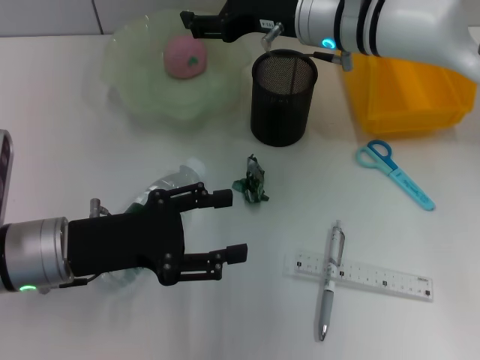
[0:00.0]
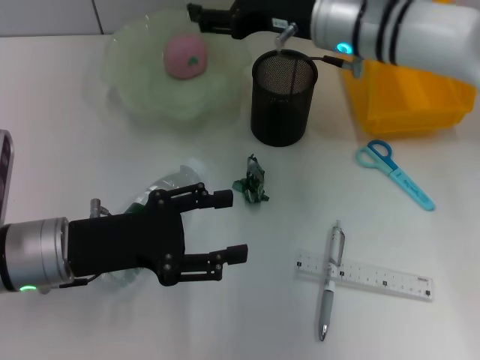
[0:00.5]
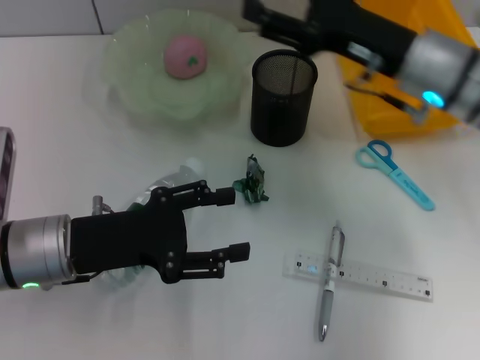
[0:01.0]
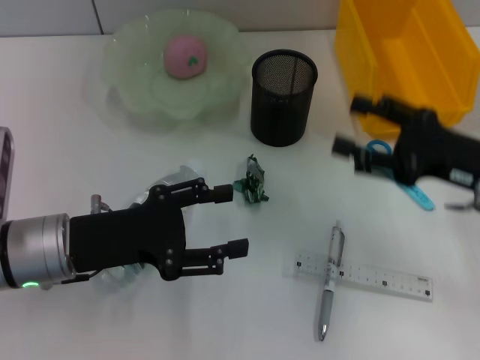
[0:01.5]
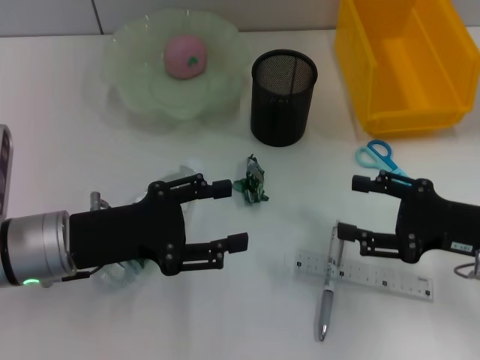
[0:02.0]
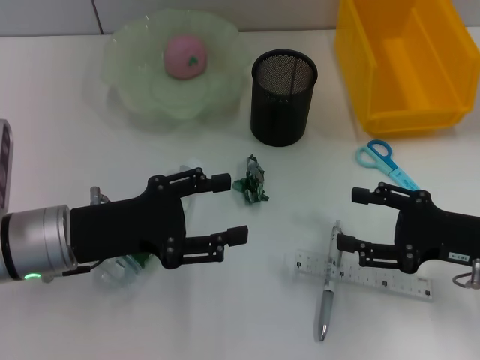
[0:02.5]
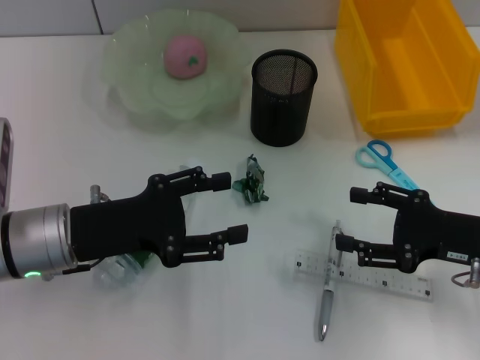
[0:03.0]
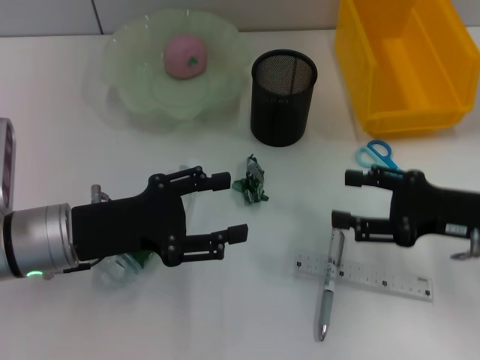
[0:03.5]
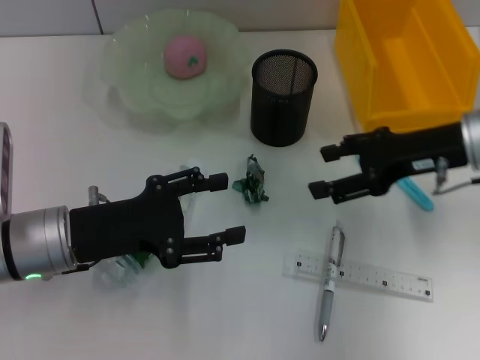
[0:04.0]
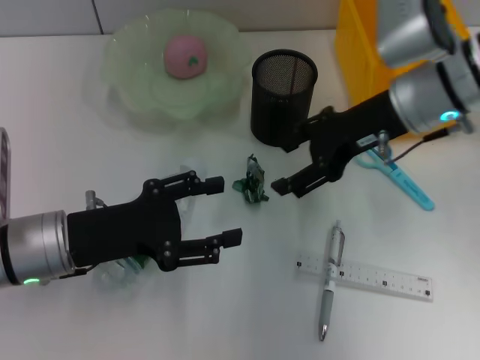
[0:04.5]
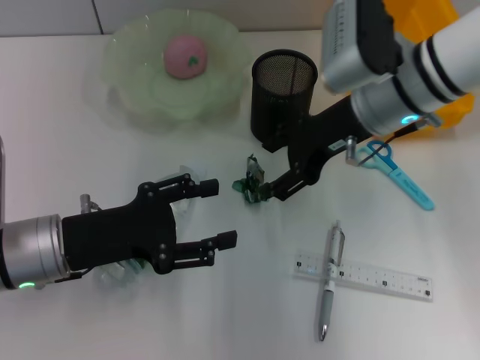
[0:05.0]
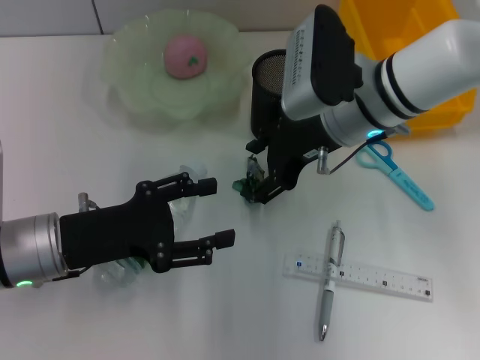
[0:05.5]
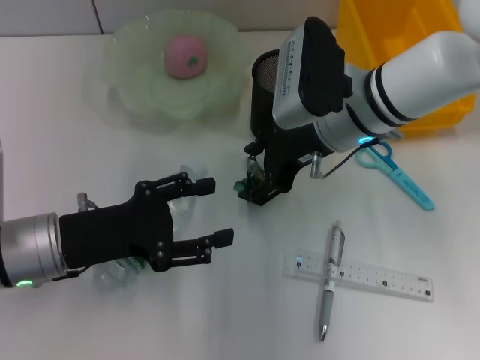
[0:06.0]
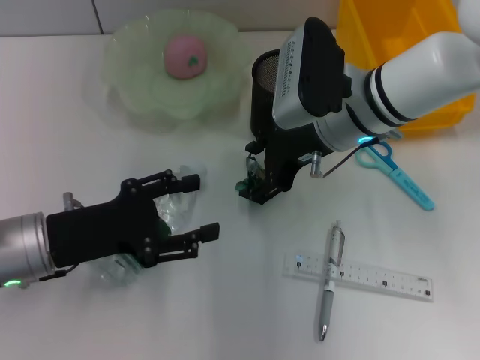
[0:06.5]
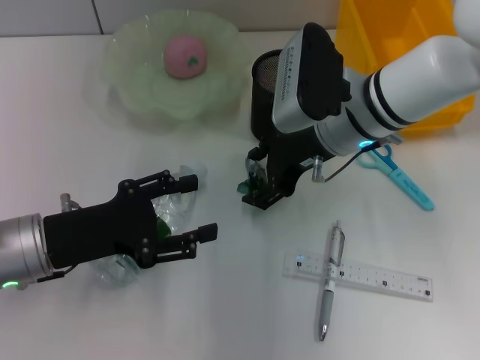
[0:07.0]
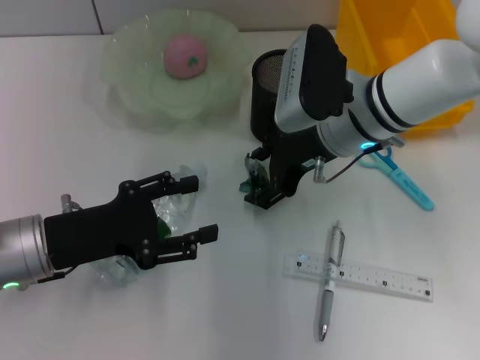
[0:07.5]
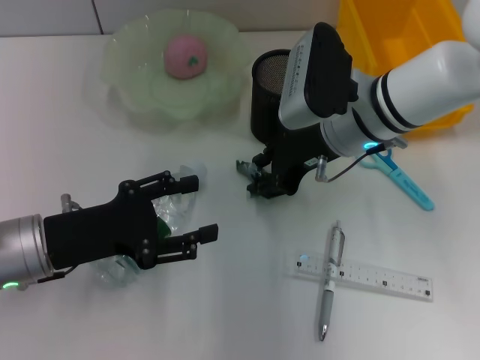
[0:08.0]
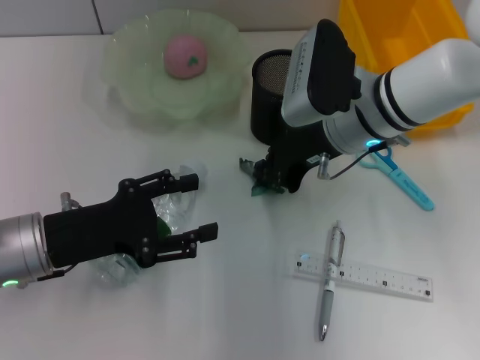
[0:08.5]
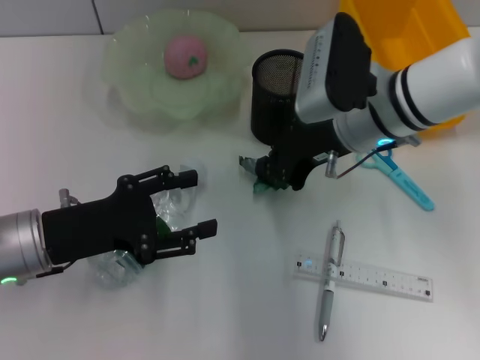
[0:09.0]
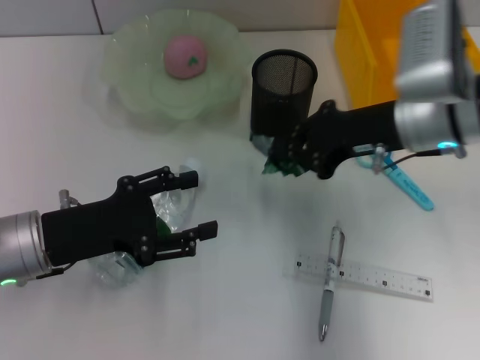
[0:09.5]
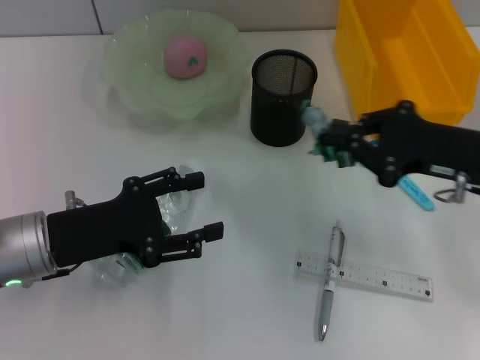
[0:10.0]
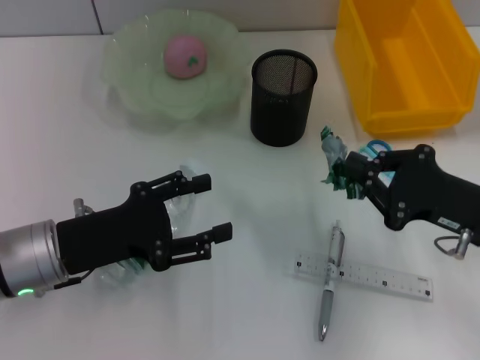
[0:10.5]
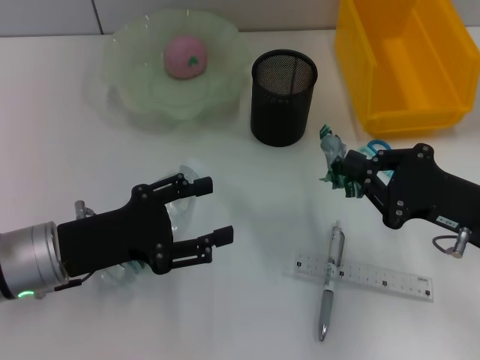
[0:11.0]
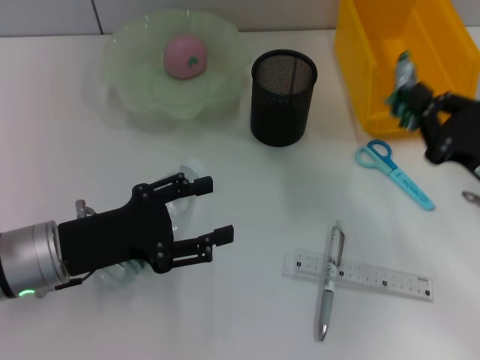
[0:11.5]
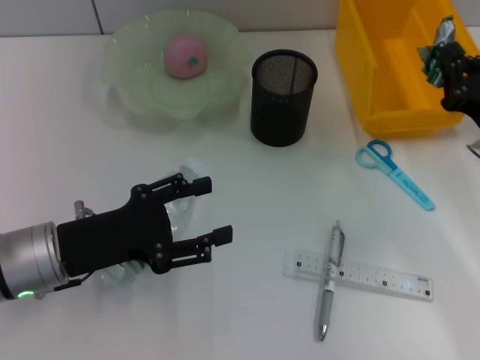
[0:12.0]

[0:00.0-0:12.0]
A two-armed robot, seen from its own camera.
Step, 0:00.0 to 0:08.0: Grab the plastic with the right hand.
0:00.0 to 0:02.0: The right gripper travels backward, to the right and downward by some 30 cm.
0:02.0 to 0:04.0: The right gripper travels forward and upward by roughly 10 cm.
0:04.0 to 0:06.0: The right gripper heads to the left, covering some 15 cm.
0:06.0 to 0:08.0: Neither gripper changes place.
0:08.0 to 0:10.0: The right gripper travels to the right and backward by some 15 cm, and closes its fingers.
0:10.0 to 0:12.0: The right gripper moves downward, some 5 cm.

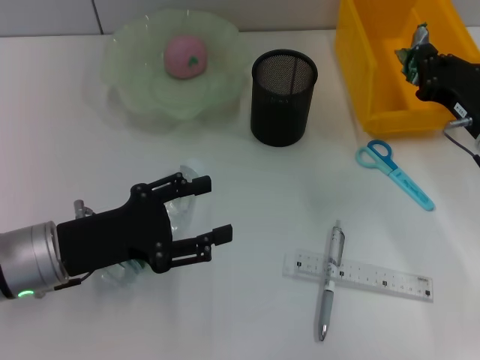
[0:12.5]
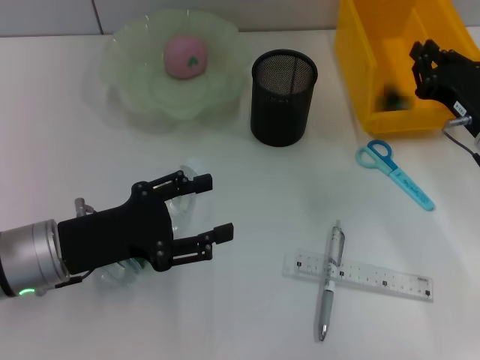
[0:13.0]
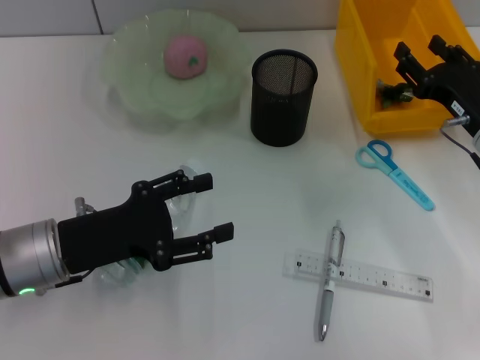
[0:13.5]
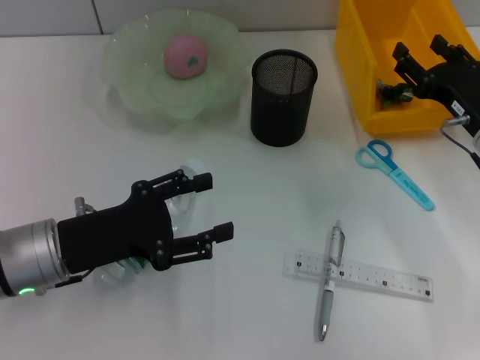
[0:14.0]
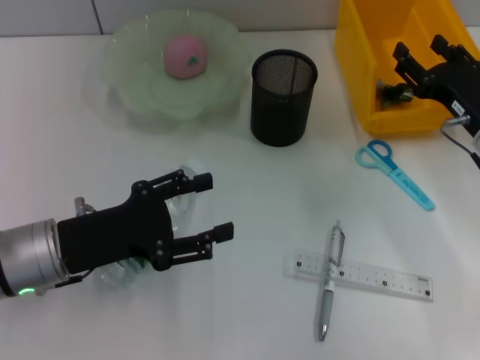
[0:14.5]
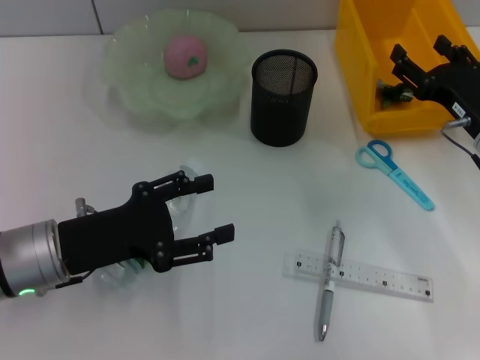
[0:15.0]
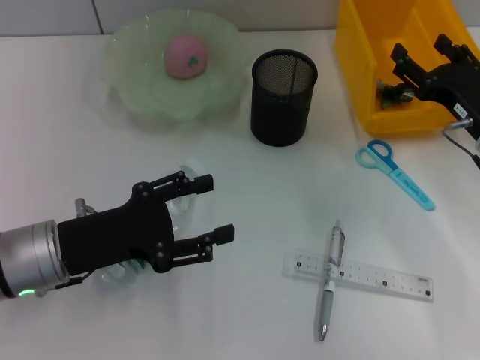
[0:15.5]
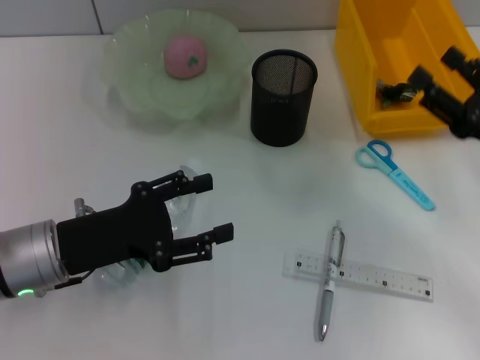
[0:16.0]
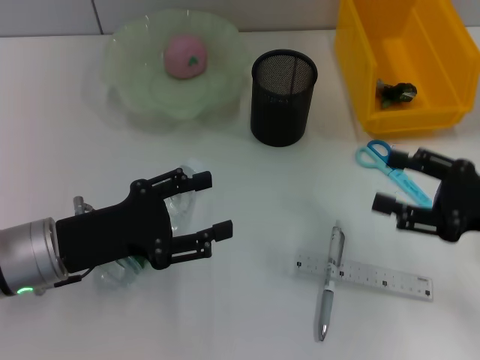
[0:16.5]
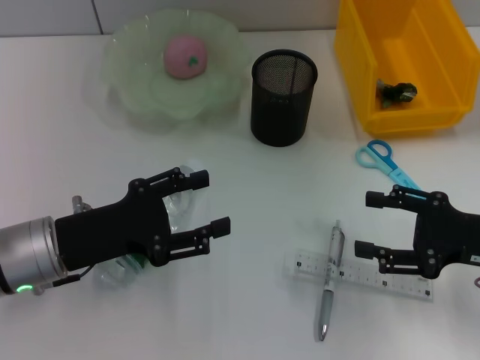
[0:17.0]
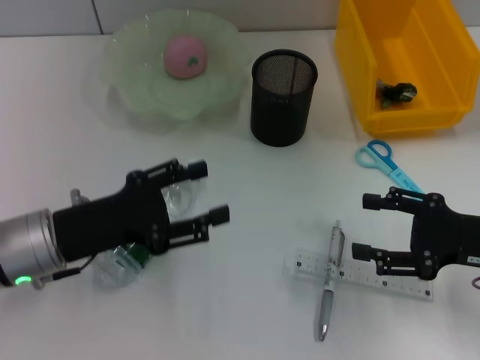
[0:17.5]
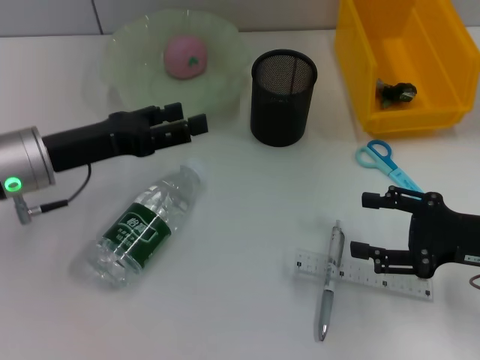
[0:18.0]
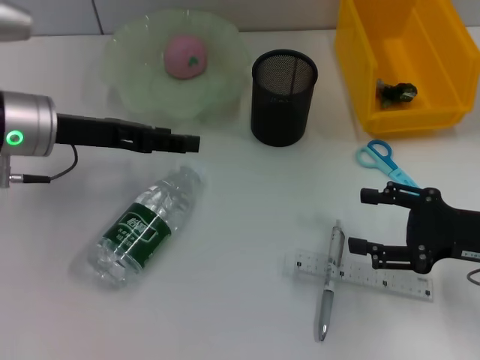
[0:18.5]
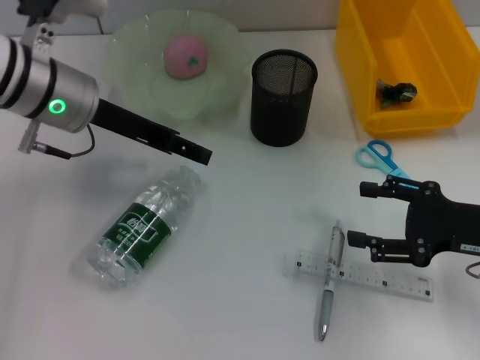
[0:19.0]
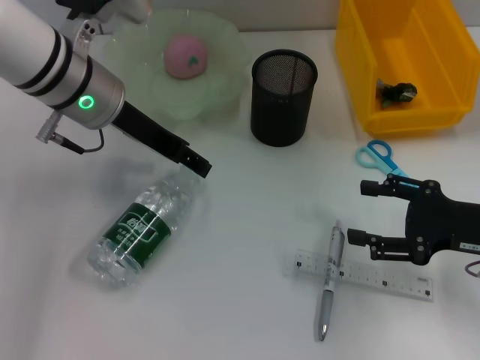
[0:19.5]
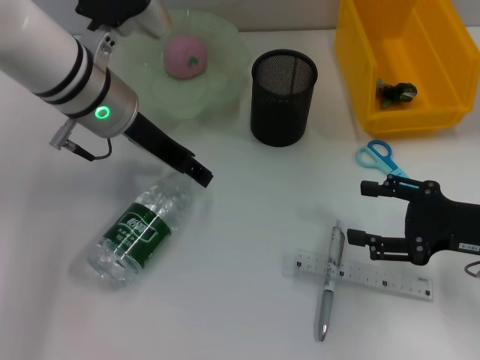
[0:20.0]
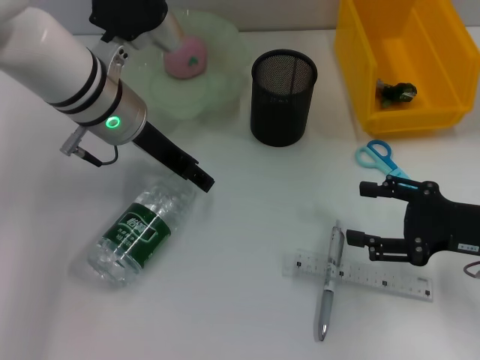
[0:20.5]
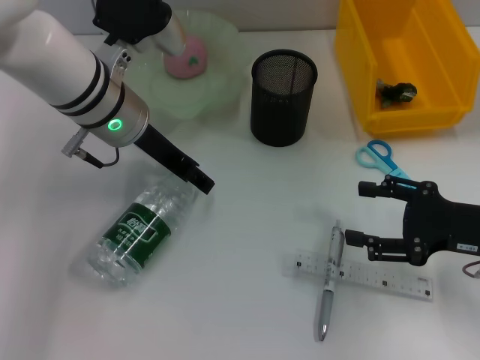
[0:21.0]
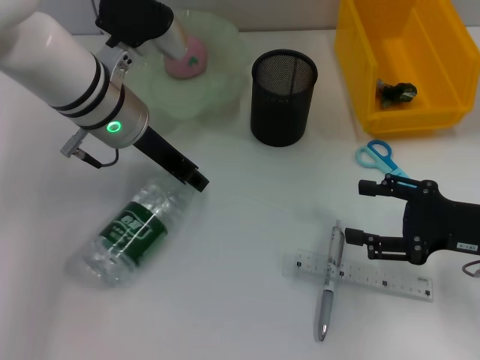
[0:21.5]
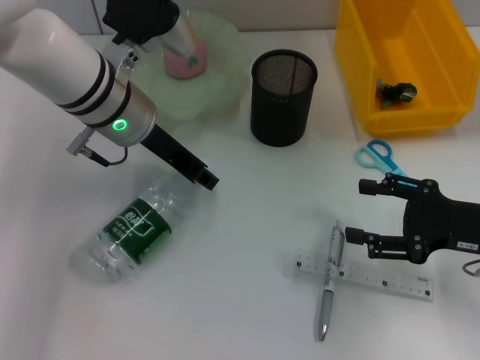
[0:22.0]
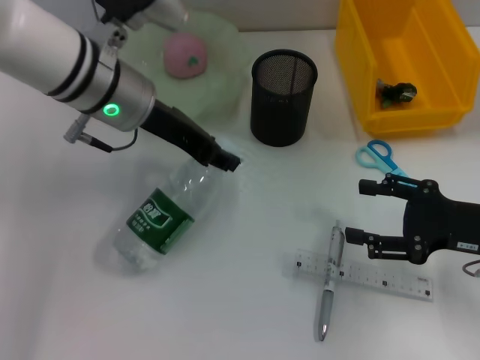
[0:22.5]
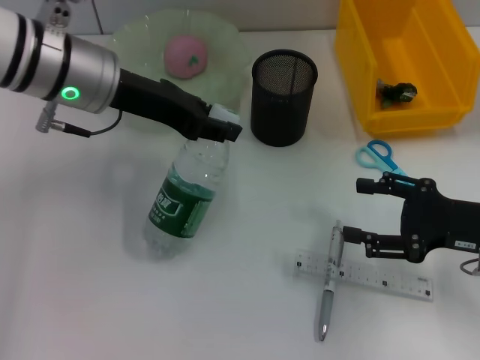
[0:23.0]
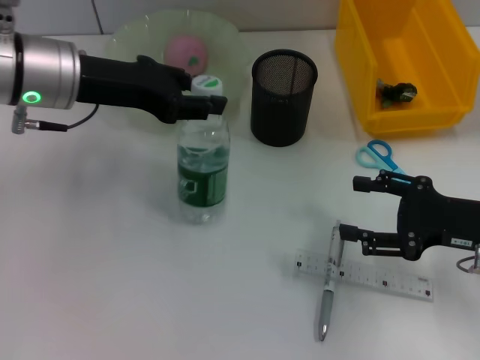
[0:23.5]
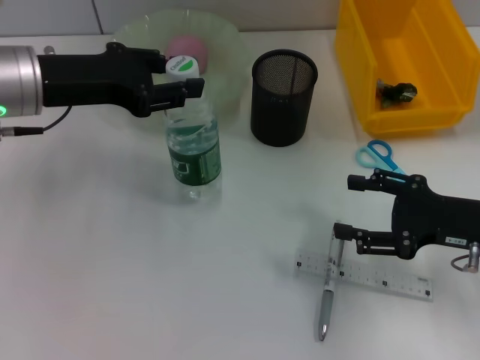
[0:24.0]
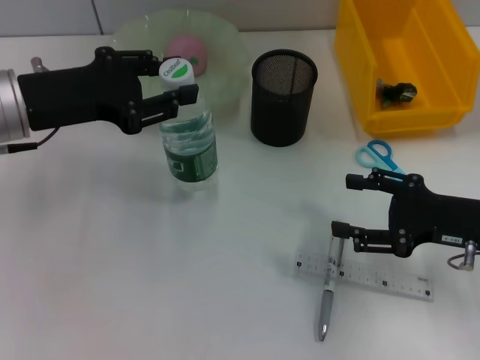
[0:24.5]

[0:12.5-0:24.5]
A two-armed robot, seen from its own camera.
Step, 0:14.0 to 0:21.5: Grab the water bottle with the left hand.
0:12.5 to 0:14.5: The right gripper opens its fingers.
0:14.5 to 0:16.5: The right gripper shifts roughly 10 cm backward.
0:16.5 to 0:18.5: The left gripper shifts approximately 15 cm forward and upward.
0:18.5 to 0:20.5: The left gripper goes some 10 cm to the right.
0:20.5 to 0:22.5: The left gripper closes its fingers.
0:22.5 to 0:24.5: The left gripper is displaced to the left and backward by roughly 10 cm.

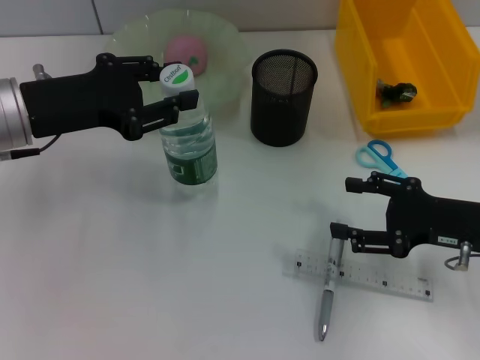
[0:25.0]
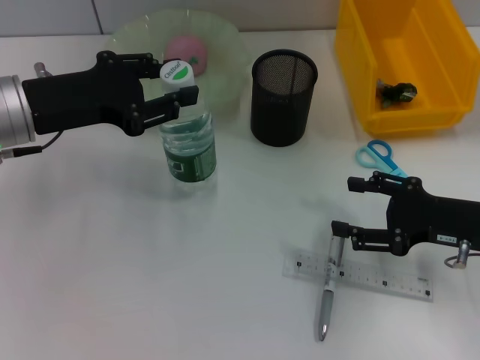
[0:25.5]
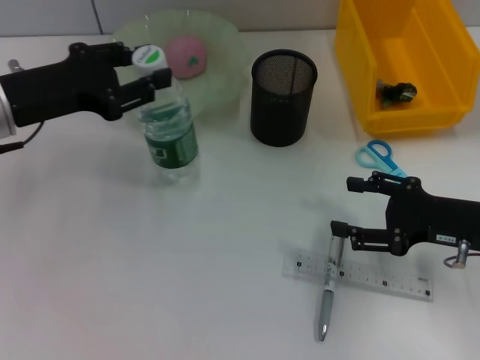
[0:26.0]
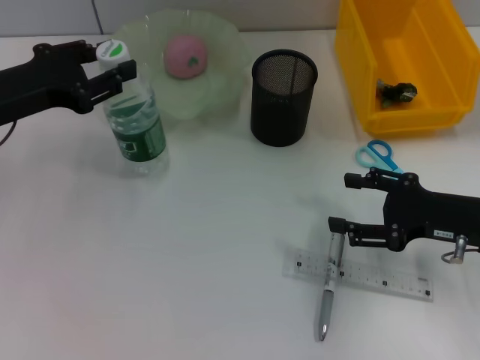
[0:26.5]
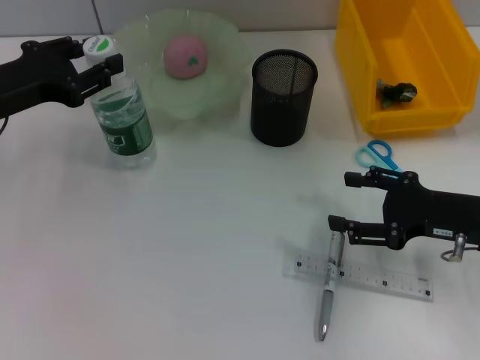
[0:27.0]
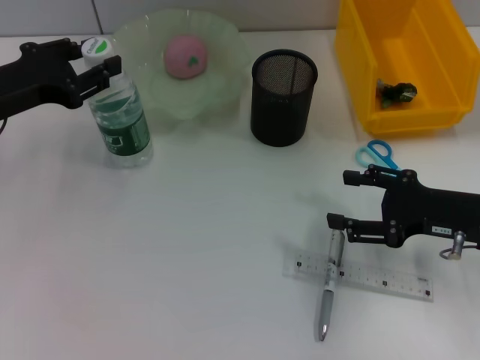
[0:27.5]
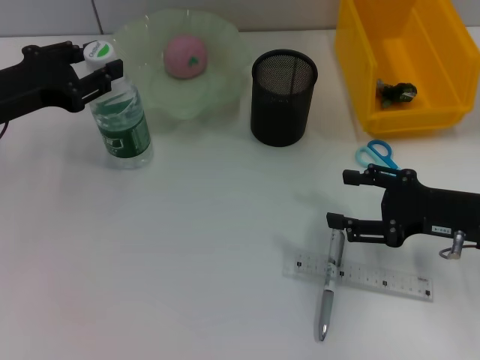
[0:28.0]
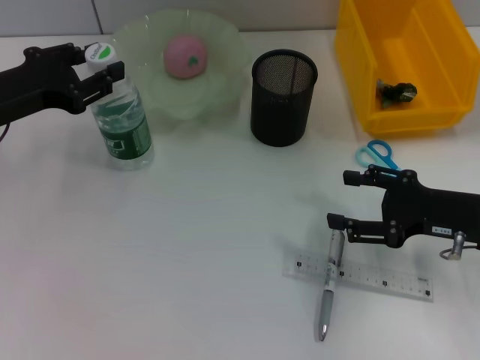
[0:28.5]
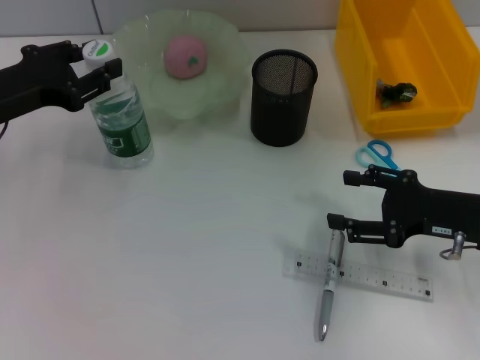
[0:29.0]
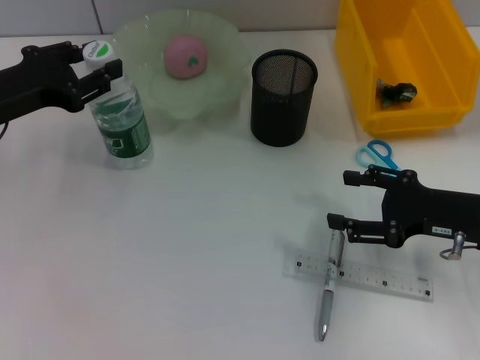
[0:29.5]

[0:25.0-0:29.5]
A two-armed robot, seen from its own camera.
0:25.0 to 0:27.0: The left gripper moves some 5 cm.
0:27.0 to 0:29.5: The two grippers keep their place.
